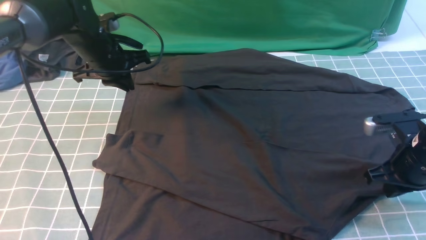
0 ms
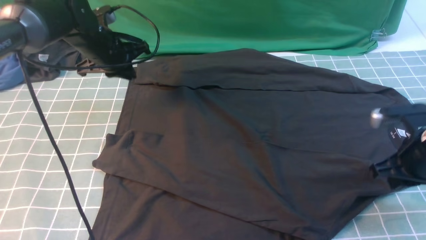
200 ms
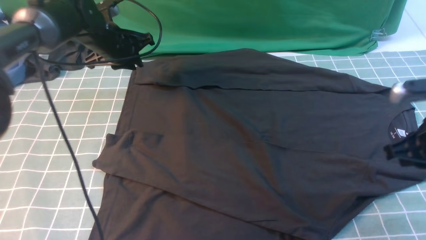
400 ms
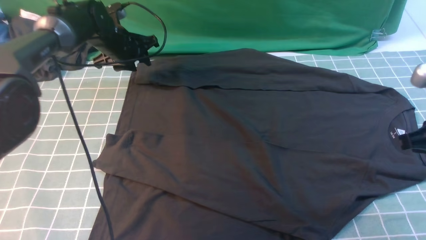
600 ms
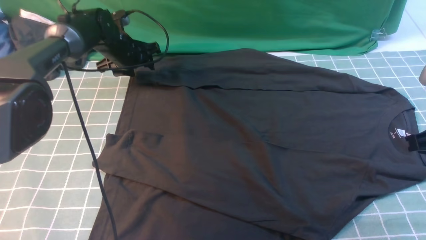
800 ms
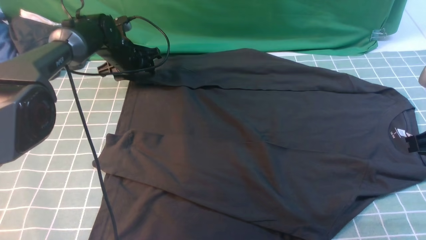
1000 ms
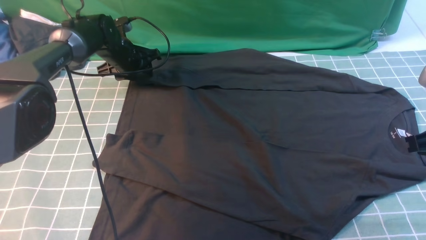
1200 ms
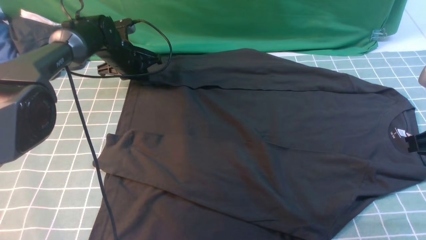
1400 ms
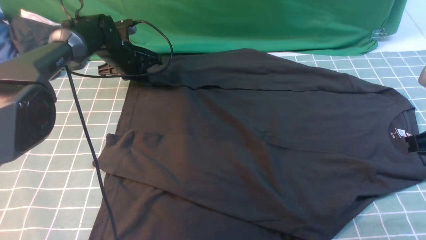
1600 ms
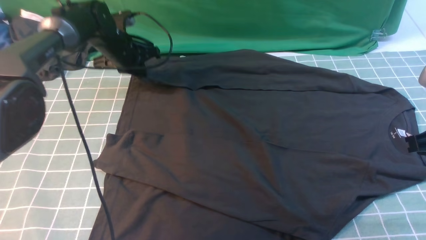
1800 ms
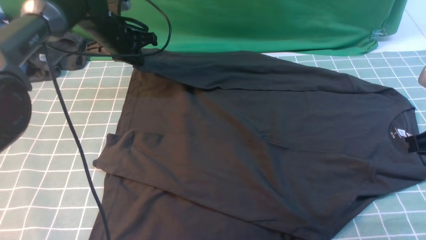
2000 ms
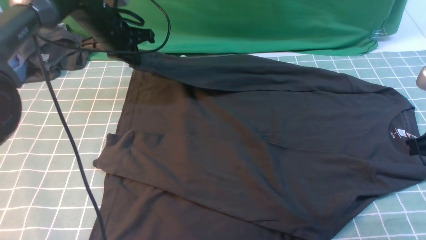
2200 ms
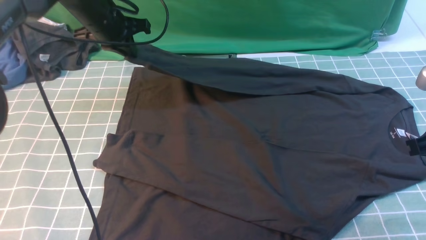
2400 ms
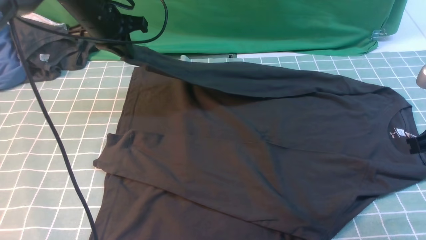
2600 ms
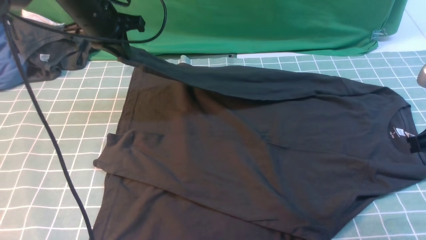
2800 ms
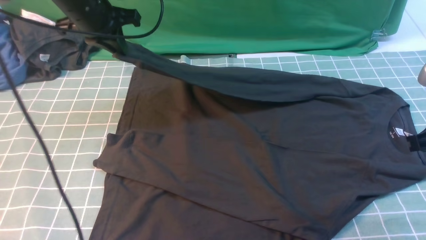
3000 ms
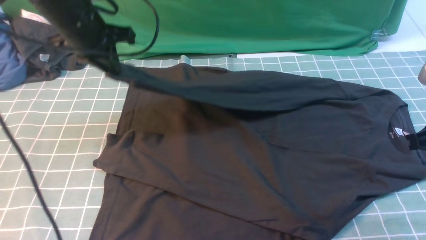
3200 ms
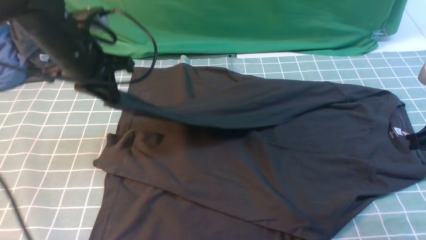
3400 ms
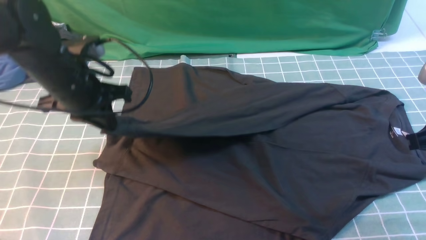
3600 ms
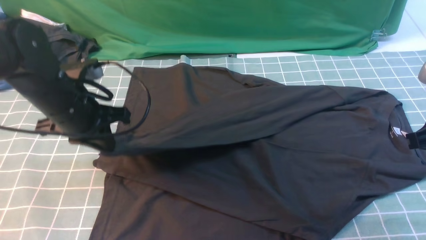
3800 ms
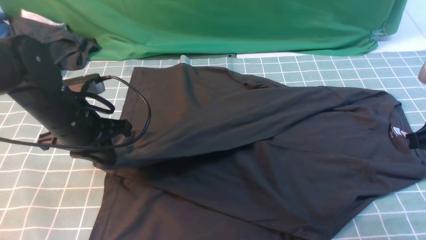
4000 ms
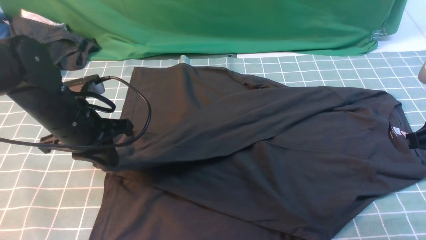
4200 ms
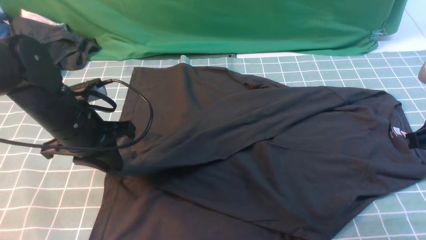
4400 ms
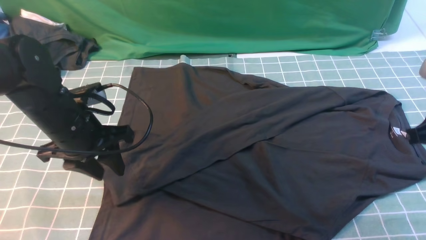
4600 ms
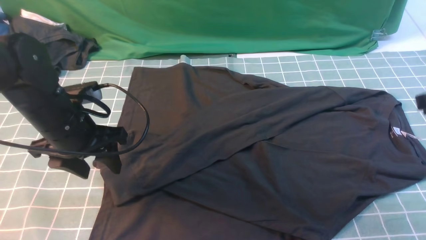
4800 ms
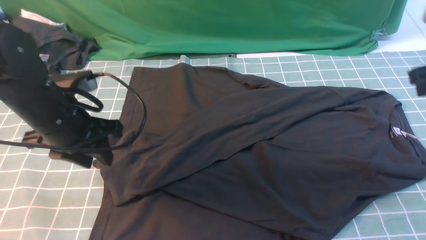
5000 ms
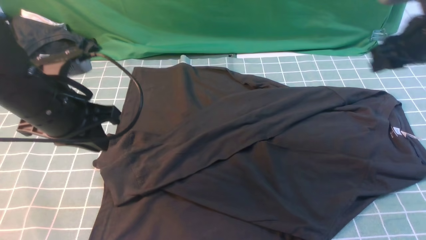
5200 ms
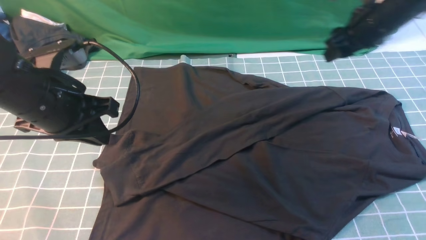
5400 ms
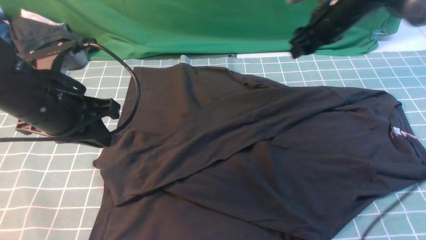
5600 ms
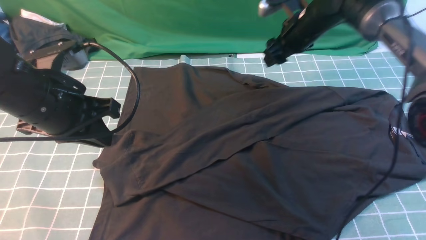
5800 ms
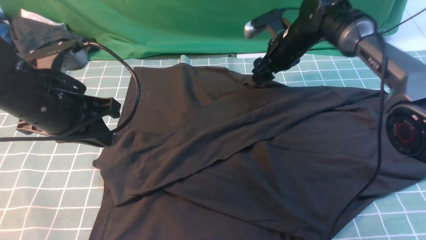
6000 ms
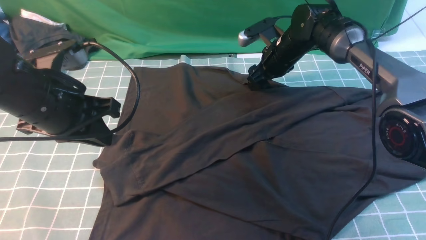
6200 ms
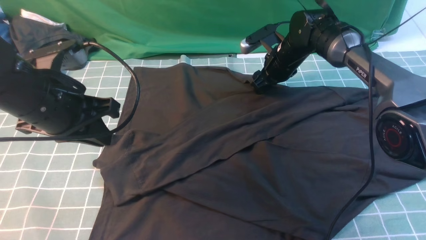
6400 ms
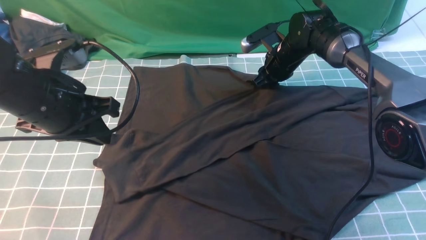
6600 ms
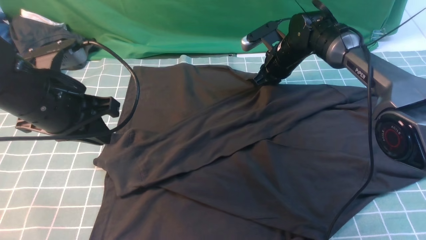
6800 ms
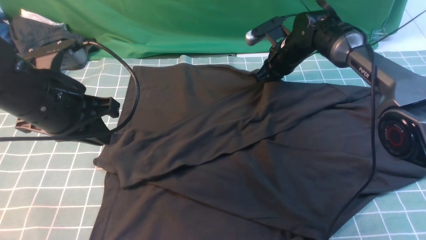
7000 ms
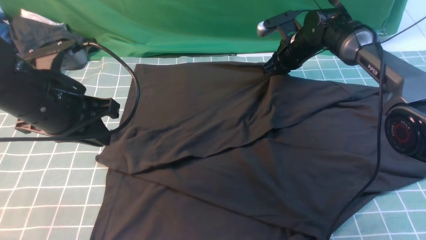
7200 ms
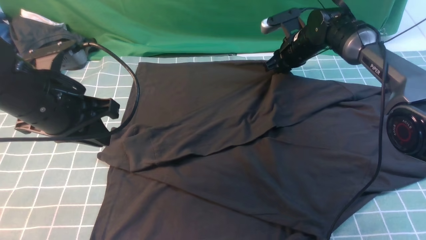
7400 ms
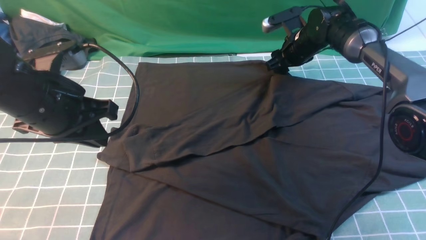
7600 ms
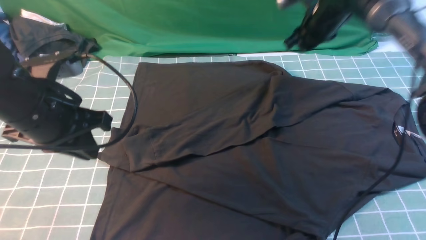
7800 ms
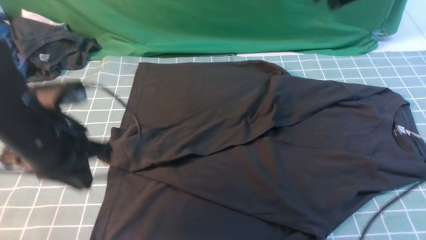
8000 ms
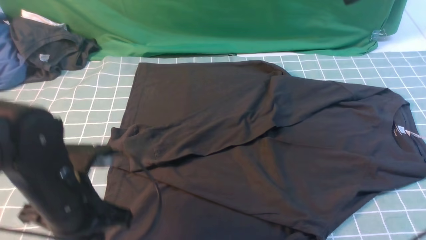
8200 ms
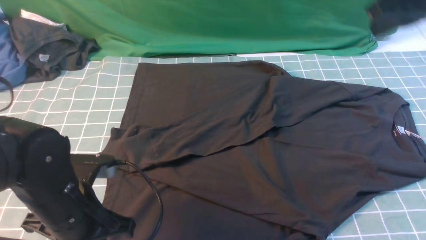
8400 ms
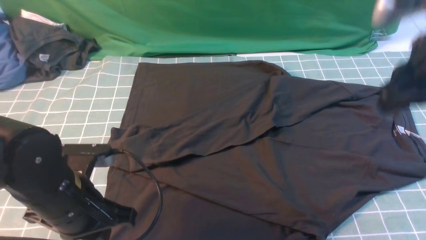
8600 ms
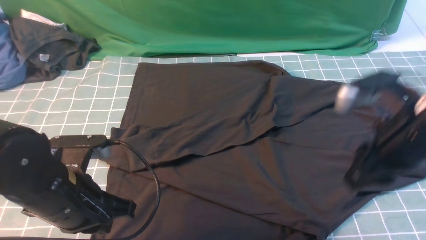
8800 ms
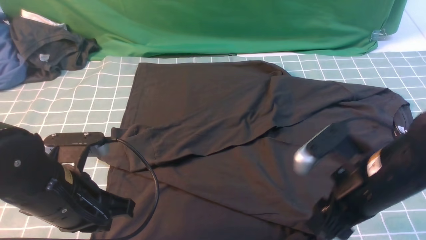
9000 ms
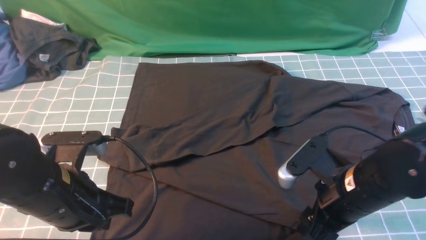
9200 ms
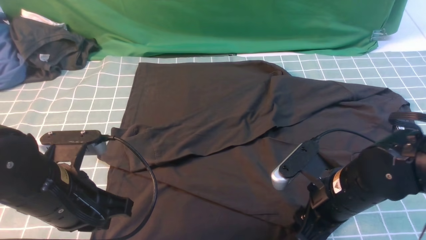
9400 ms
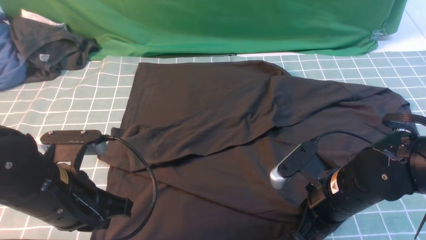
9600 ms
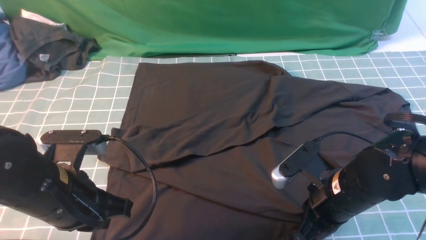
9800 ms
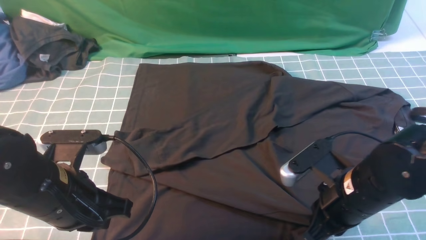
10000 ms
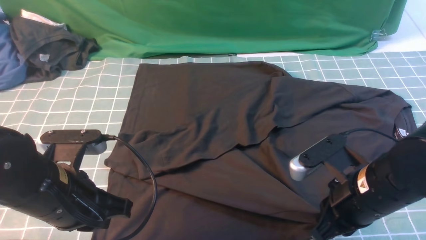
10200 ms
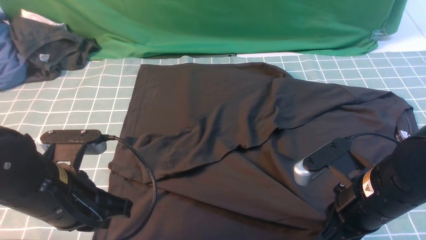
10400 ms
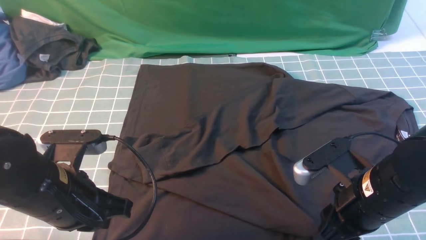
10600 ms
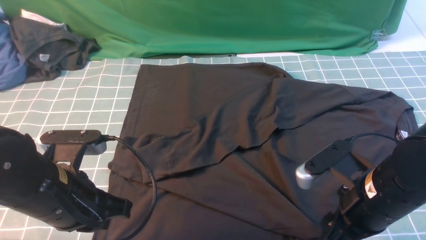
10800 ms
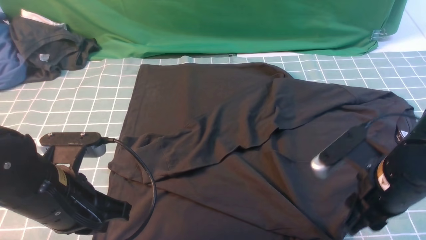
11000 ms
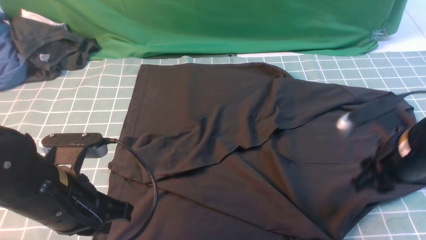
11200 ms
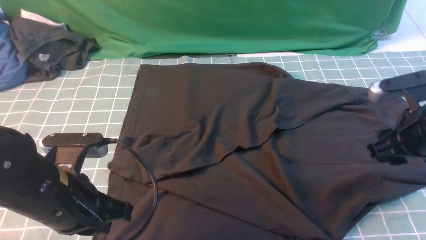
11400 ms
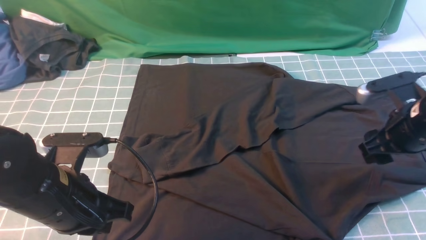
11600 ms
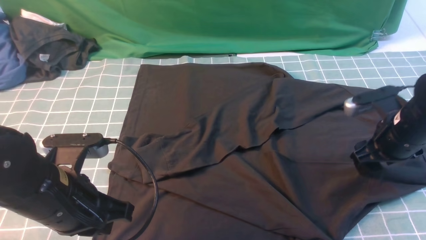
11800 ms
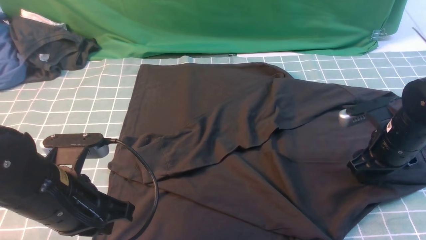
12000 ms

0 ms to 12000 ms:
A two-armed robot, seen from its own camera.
Step, 2000 ms to 4800 ms: use the left arm to drag and drop the cuff onto the cuff closest to the left arm.
0 ms to 1600 ms: The right gripper is displaced upward and backward by some 10 cm. Meanwhile the left gripper is displaced forward and downward by about 10 cm, and opens and closes again.
1600 ms to 3000 ms: The left gripper heads upward and backward, covering about 15 cm.
3000 ms to 4400 ms: The left gripper shifts approximately 15 cm backward and downward.
4400 ms to 6000 ms: The left gripper is displaced upward by about 5 cm, and opens and closes again, while the right gripper shifts about 35 cm forward and to the left, and opens up.
6000 ms to 7600 ms: The right gripper closes up.
7600 ms to 9000 ms: The left gripper travels backward and downward by about 10 cm. The right gripper travels backward by roughly 35 cm, and closes, then opens again.
9000 ms to 10400 ms: The right gripper closes up.
10400 ms to 12000 ms: The right gripper shifts approximately 15 cm forward and to the right, and opens.

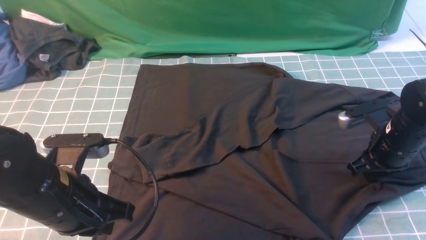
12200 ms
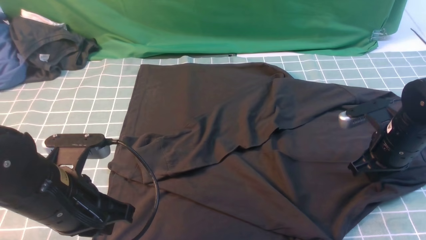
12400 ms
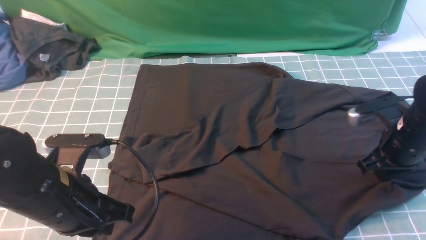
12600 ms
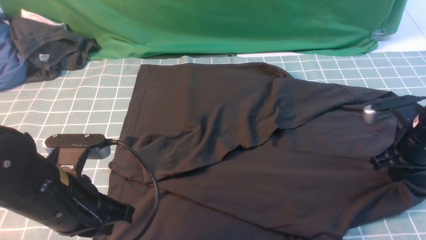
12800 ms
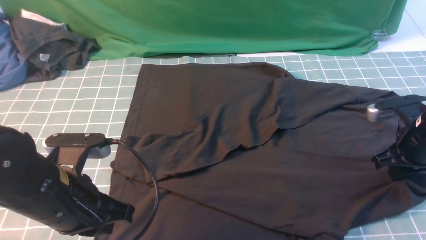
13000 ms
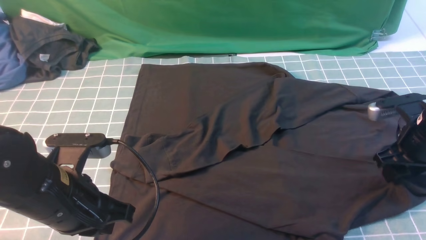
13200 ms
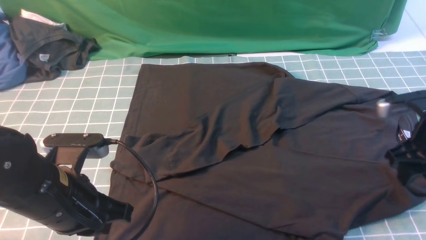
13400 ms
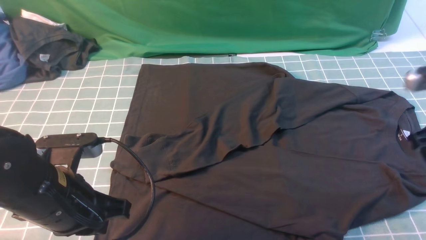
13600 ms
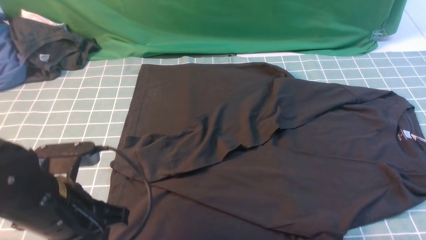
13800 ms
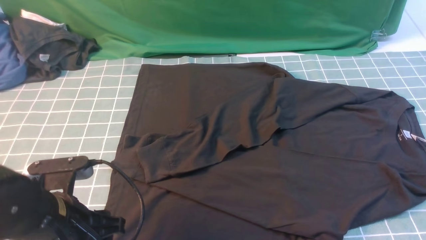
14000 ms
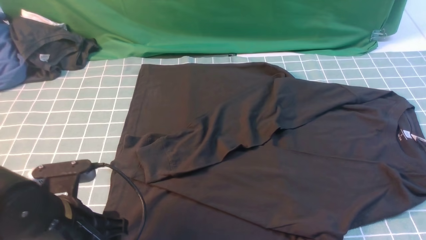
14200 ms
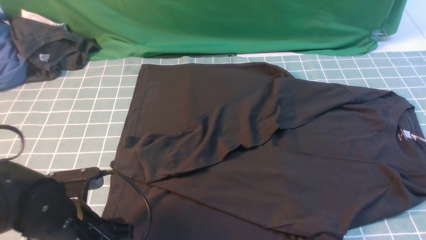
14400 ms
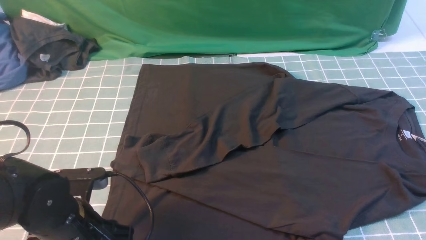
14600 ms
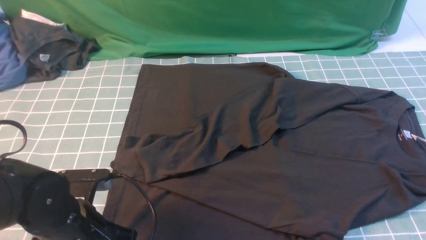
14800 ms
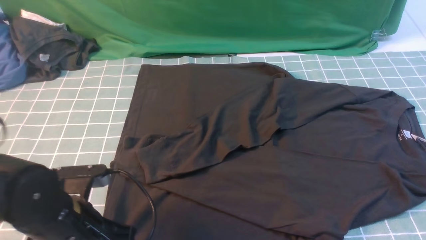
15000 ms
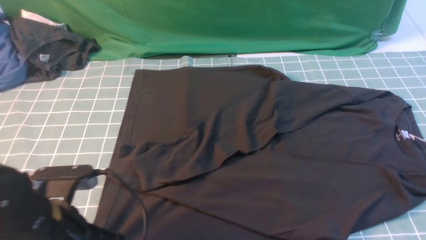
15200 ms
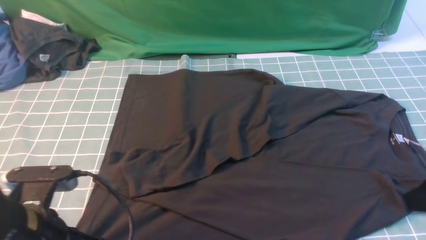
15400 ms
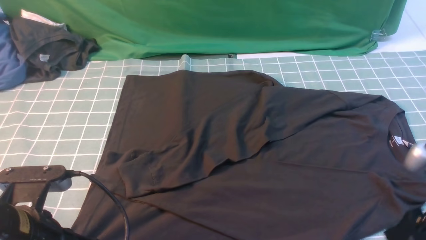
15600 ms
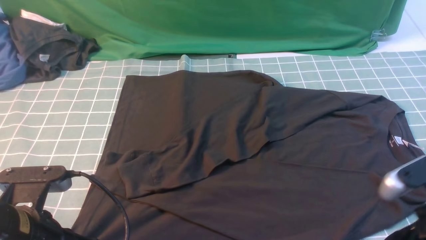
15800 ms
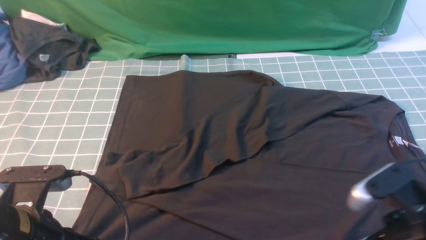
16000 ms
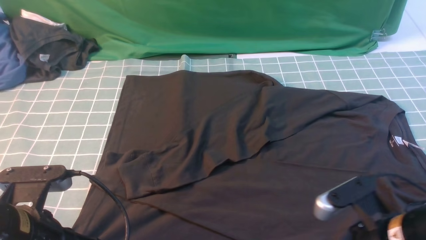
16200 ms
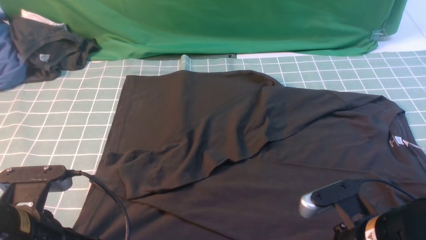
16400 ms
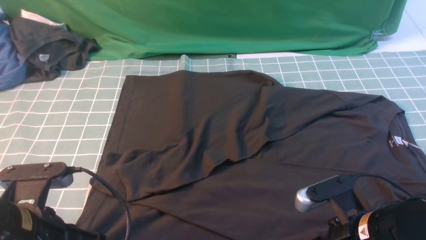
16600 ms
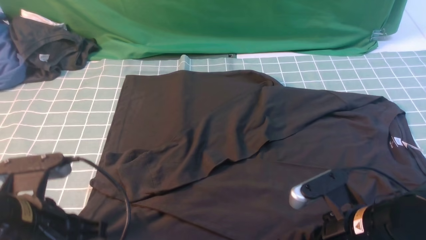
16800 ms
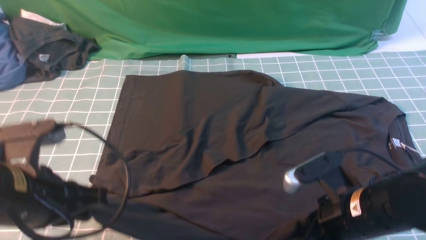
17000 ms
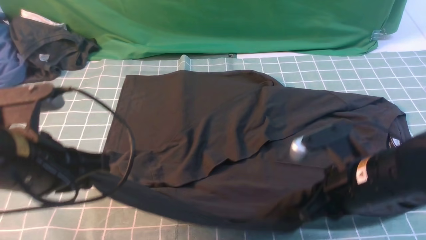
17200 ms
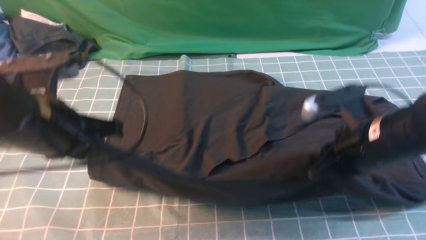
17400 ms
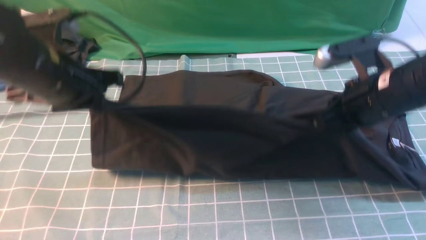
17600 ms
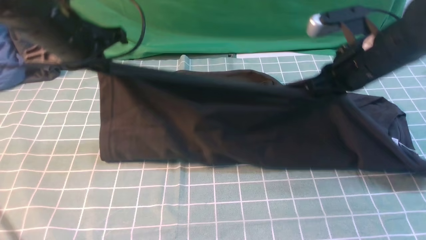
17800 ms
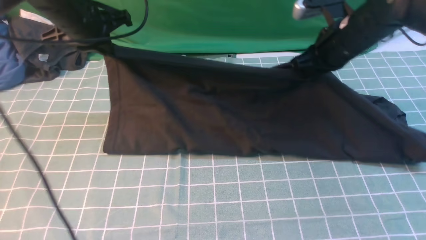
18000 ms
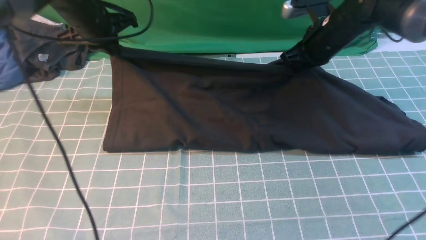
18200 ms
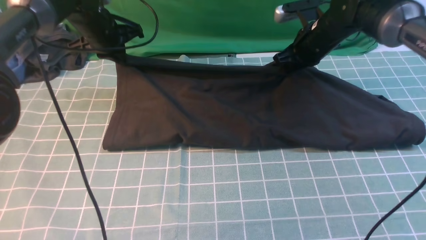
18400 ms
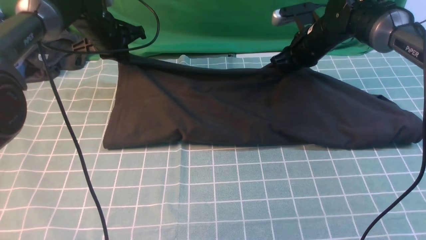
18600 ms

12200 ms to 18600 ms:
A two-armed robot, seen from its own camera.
Step, 12200 ms to 16800 ms: use both arms simultaneously to clamp the lower edge of the clothing fabric.
12200 ms to 13800 ms: The right gripper heads upward and backward, covering approximately 20 cm. The left gripper opens its fingers.
13800 ms to 15400 ms: The left gripper closes. Meanwhile the right gripper goes about 5 cm backward, and opens its fingers.
15400 ms to 17000 ms: The right gripper moves to the left and downward, some 15 cm, and closes its fingers. Meanwhile the left gripper shifts by about 5 cm.
17000 ms to 18600 ms: The grippers both shift forward by roughly 35 cm. The right gripper opens its fingers.
